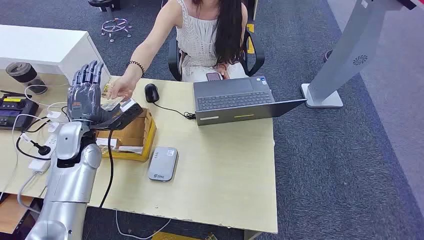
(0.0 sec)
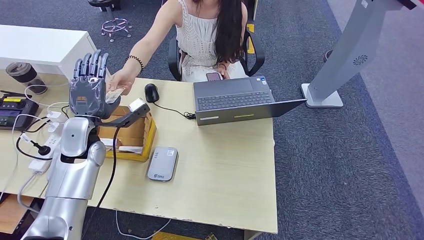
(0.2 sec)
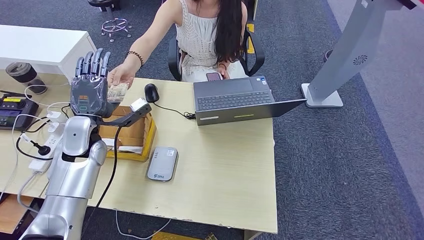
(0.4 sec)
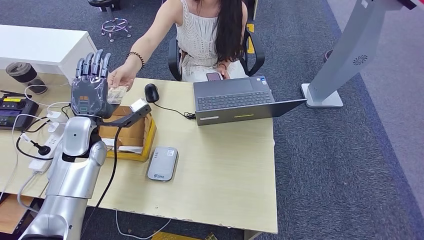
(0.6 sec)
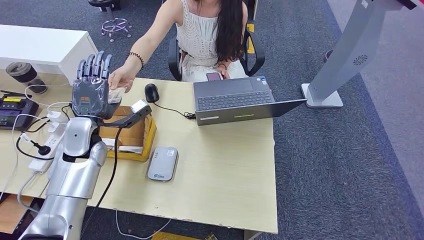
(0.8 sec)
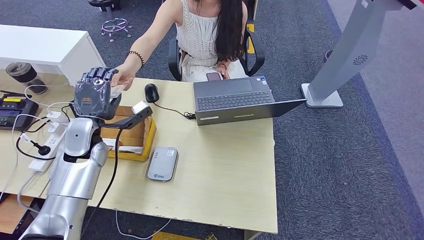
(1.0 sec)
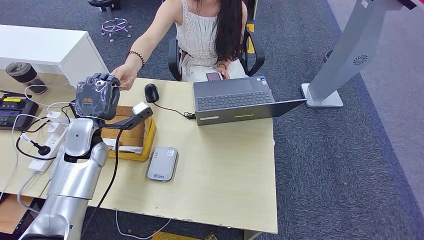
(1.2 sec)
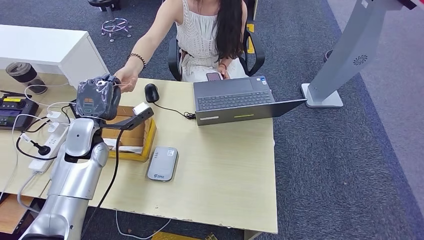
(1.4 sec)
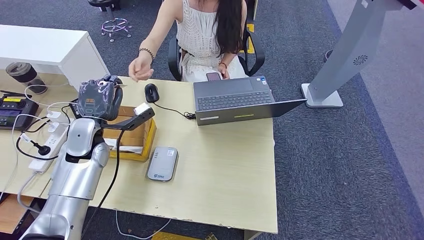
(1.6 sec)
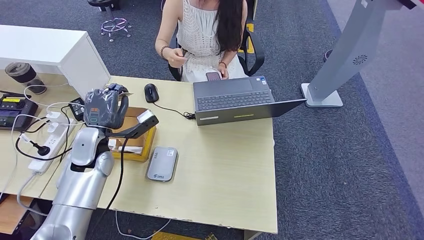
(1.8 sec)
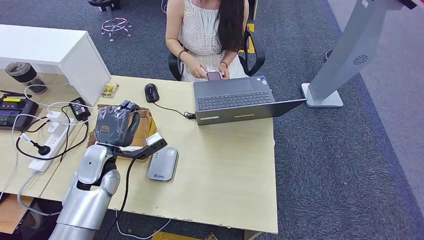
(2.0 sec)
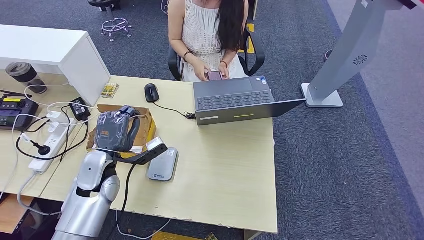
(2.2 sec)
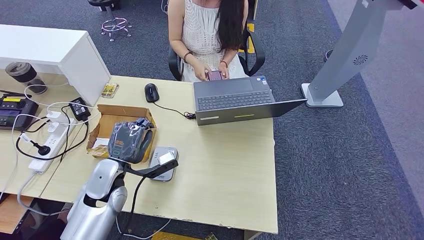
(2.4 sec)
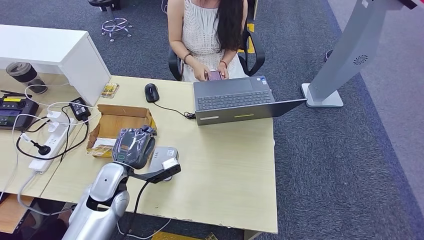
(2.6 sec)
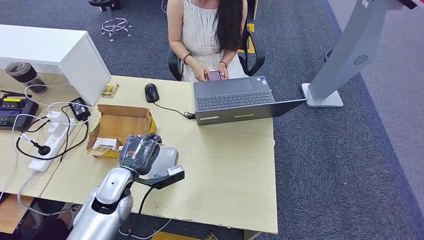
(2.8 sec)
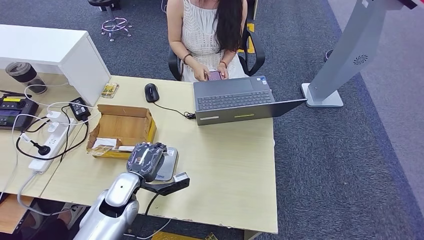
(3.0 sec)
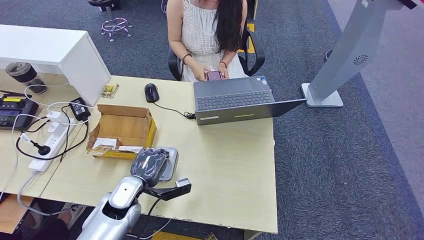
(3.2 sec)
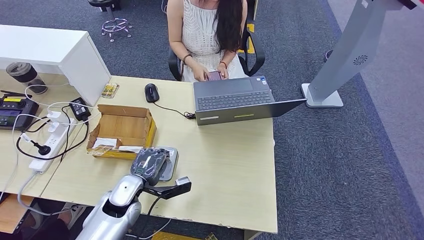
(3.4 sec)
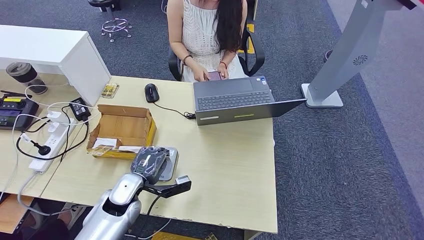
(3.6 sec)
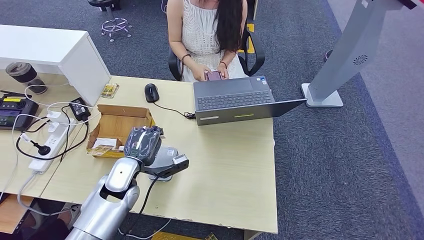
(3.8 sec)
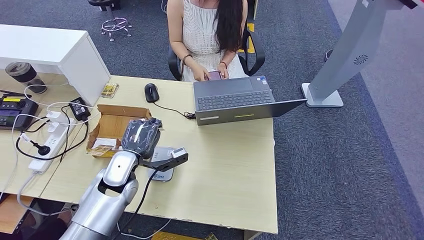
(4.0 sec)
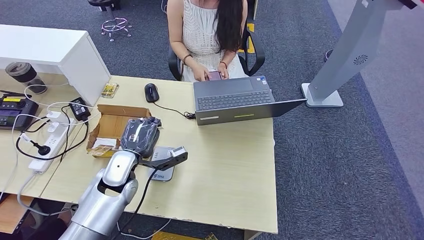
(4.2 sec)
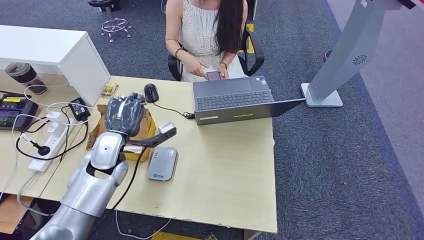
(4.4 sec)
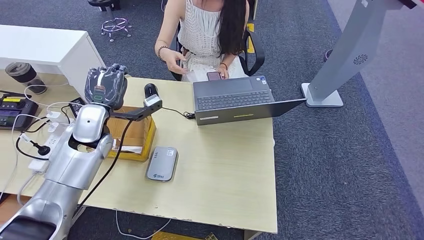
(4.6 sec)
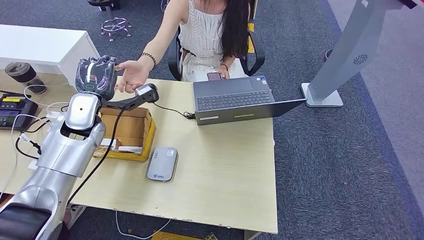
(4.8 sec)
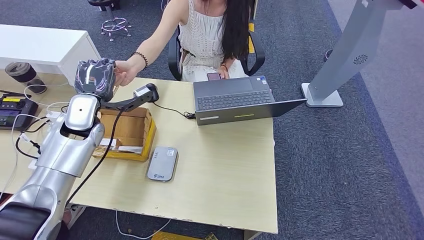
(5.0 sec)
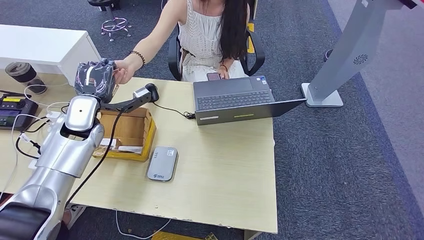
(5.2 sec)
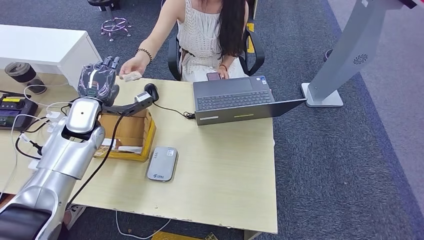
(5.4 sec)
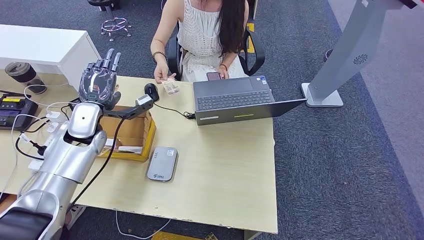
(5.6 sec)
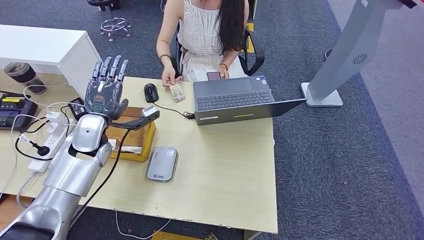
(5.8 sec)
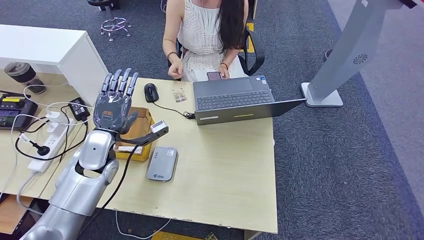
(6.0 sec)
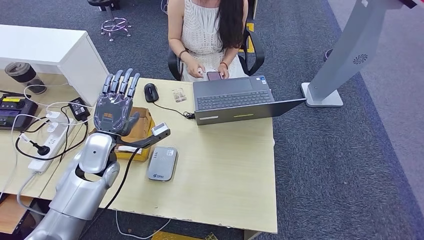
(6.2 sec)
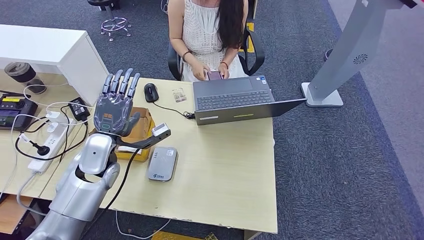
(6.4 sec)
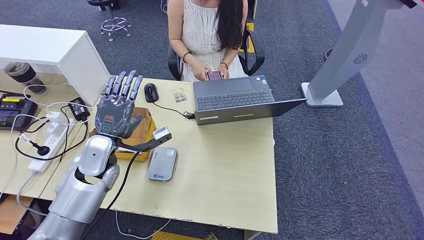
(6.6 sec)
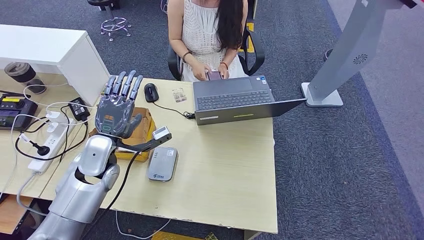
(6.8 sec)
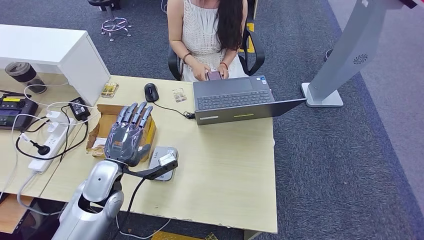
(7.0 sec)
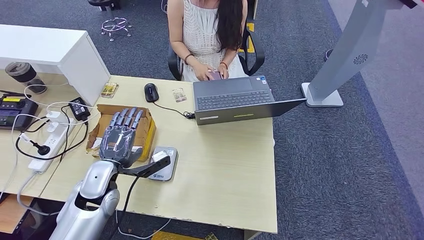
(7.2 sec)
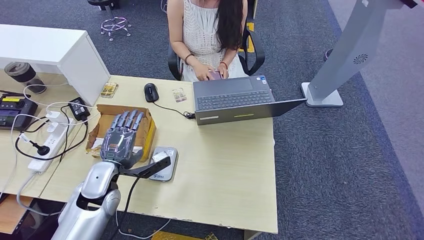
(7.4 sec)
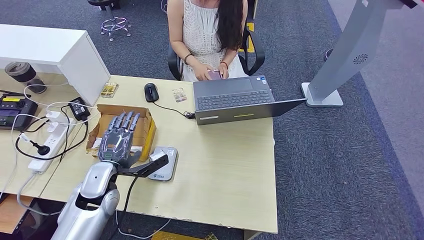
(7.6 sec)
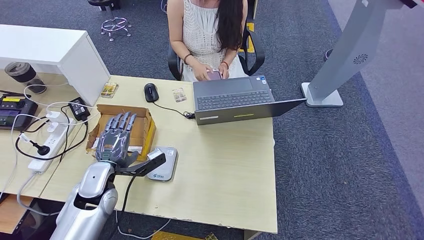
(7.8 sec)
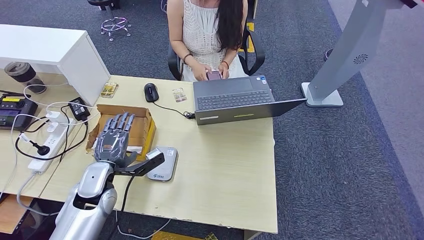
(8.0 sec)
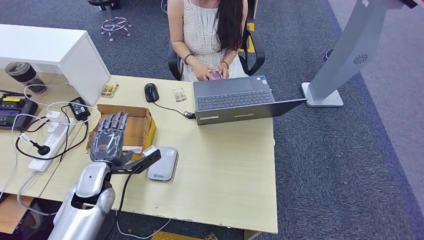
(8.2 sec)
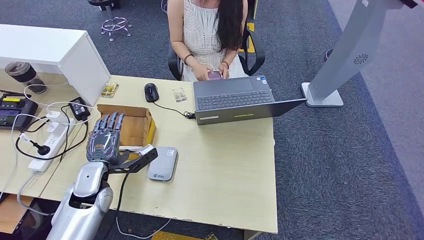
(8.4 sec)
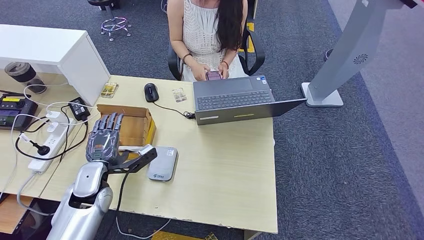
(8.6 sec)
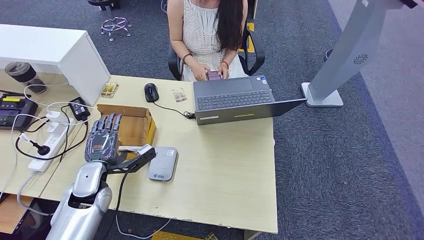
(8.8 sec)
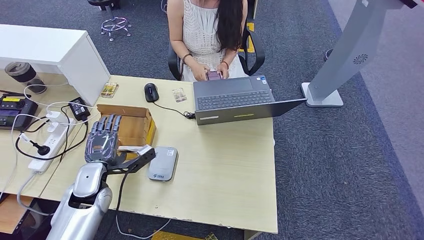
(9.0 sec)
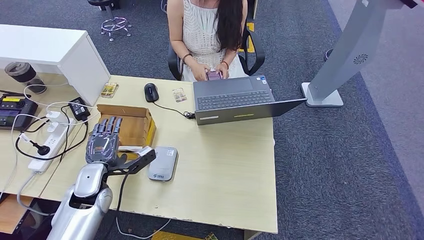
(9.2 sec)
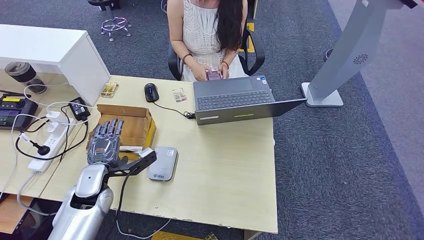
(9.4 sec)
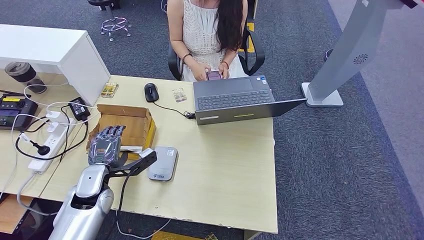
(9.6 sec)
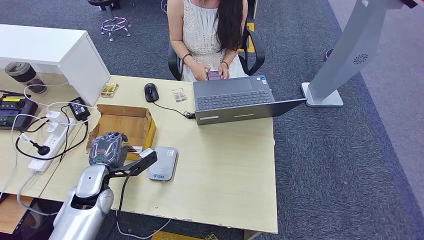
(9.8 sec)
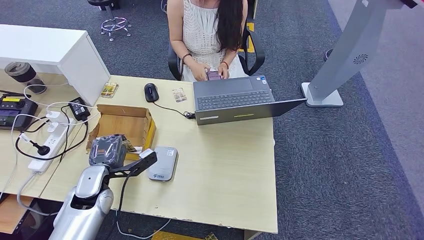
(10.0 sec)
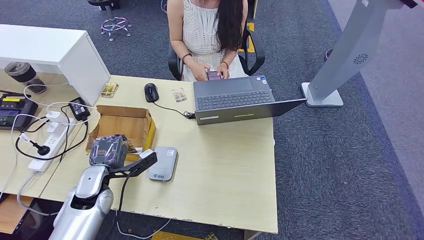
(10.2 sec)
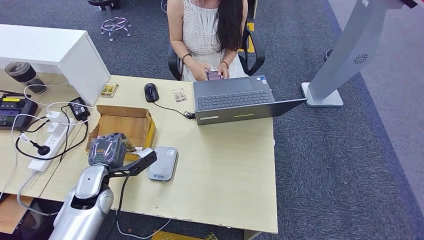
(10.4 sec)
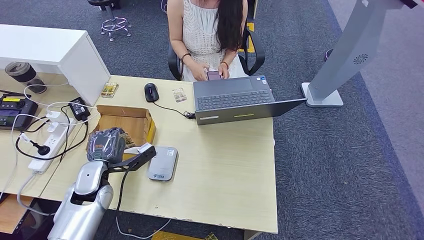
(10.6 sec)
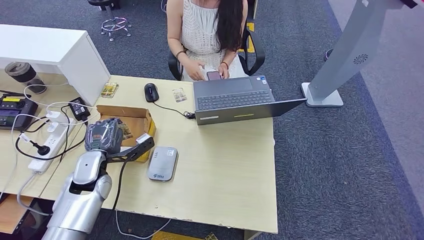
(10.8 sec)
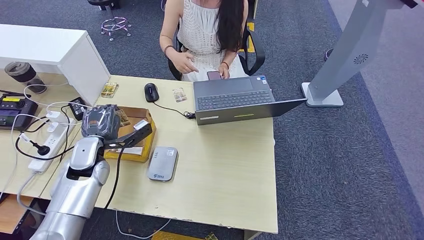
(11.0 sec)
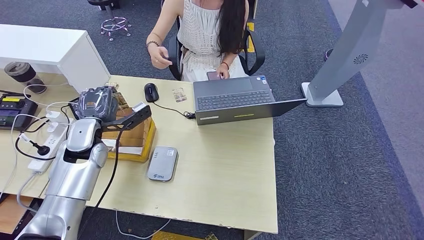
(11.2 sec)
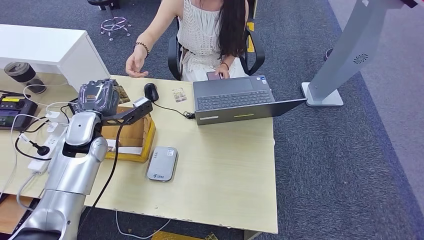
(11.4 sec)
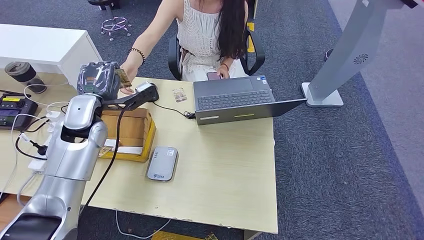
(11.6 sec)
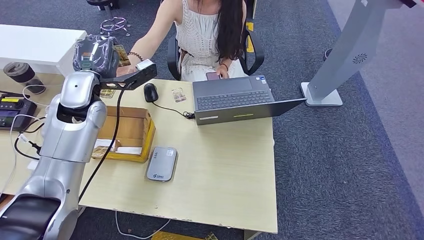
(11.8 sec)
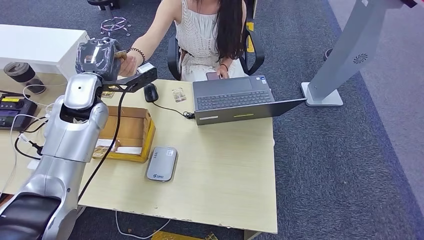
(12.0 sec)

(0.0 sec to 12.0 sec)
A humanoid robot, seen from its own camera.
Step, 0.0 sec - 3.2 sec: Take the ID card from the person's hand.
Step, 3.4 sec - 4.6 sec: Place the ID card on the card reader.
Step, 4.8 sec - 7.4 sec: Hand the ID card to the person.
Step, 7.6 sec - 11.2 sec: Pick up the room key from the key card box.
1.6 sec - 3.0 sec: The left hand travels downward, backward and to the right by roughly 15 cm.
3.0 sec - 4.4 sec: The left hand heads upward and forward, covering some 10 cm.
4.4 sec - 6.0 sec: The left hand goes upward and returns, roughly 10 cm each way.
6.0 sec - 7.6 sec: The left hand goes roughly 10 cm backward and downward.
7.6 sec - 10.4 sec: There are only small adjustments of the hands.
10.4 sec - 12.0 sec: The left hand shifts approximately 25 cm upward and forward.

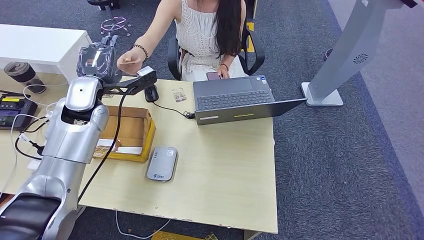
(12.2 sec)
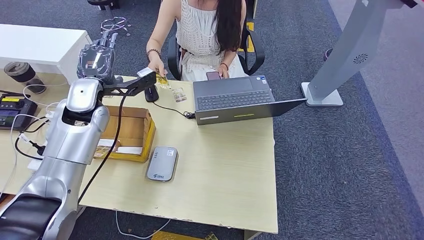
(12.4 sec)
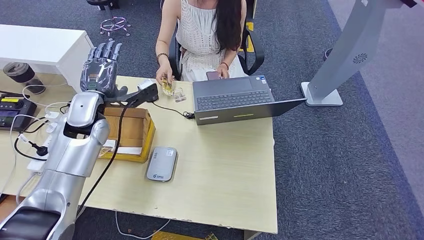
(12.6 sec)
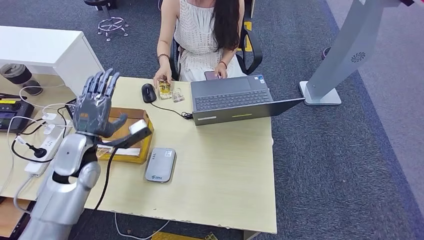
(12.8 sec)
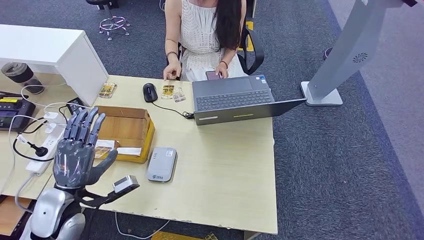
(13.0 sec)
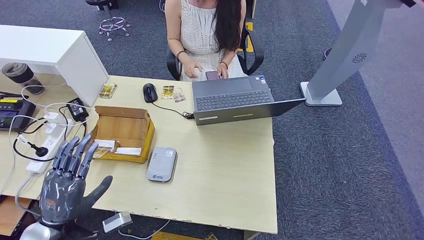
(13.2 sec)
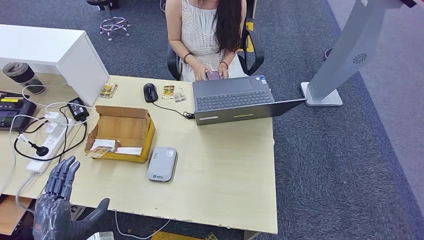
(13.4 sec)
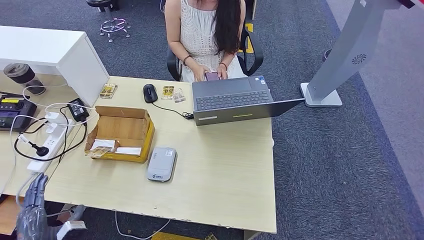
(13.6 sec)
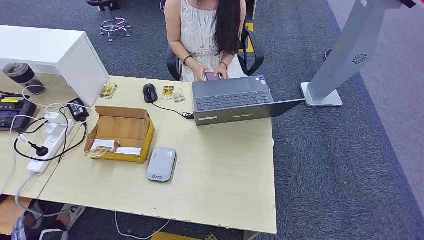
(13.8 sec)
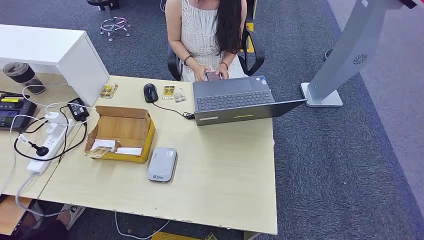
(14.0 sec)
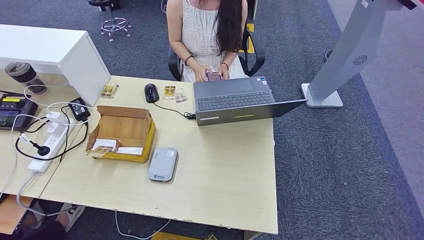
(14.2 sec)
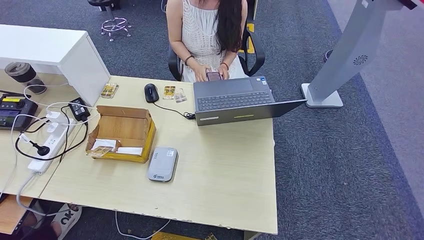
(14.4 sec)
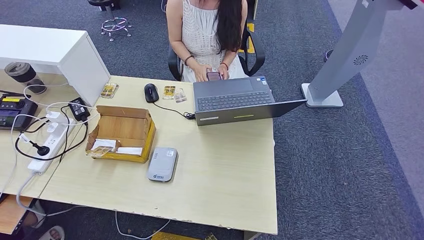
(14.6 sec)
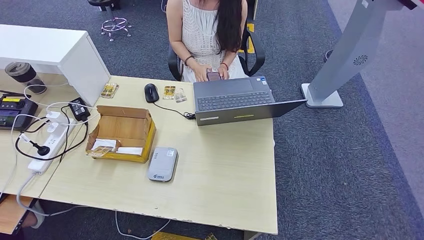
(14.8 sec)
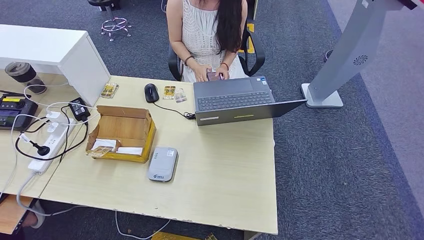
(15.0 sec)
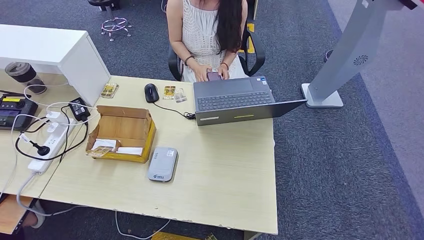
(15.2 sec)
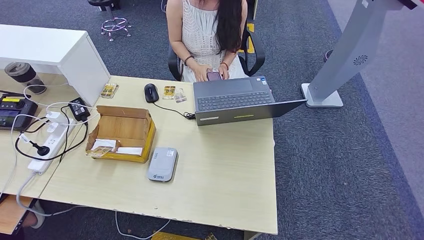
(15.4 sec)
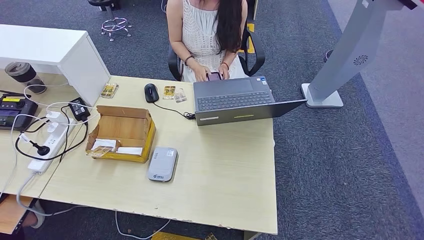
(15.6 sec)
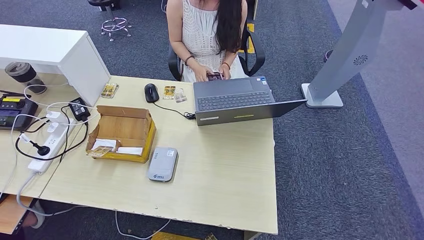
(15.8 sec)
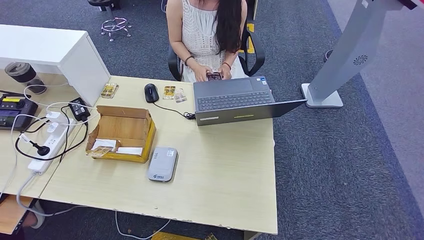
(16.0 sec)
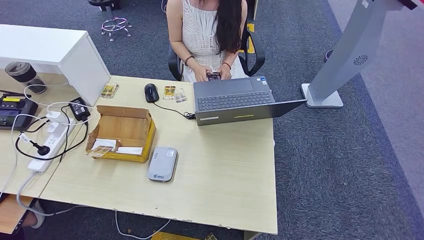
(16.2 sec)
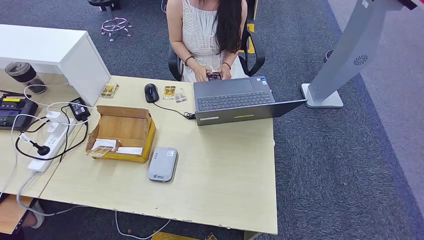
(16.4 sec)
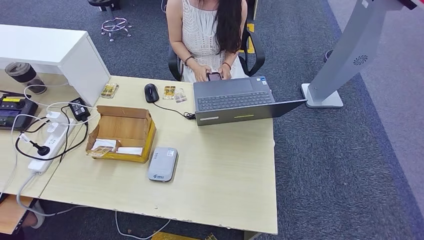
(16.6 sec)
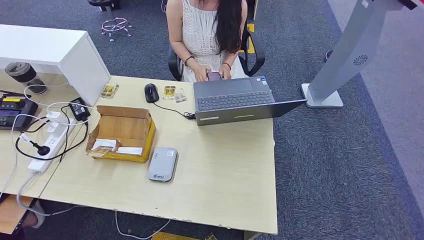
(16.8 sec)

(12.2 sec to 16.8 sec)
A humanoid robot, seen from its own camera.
Step, 12.2 sec - 16.8 sec: Hand the room key to the person.
12.2 sec - 13.8 sec: The left hand travels backward and downward by some 50 cm.
13.8 sec - 15.2 sec: The left hand goes roughly 15 cm to the right and downward.
